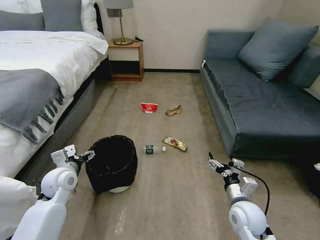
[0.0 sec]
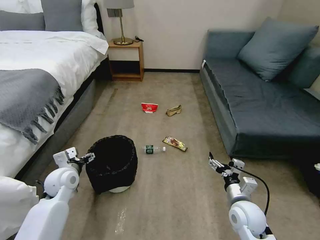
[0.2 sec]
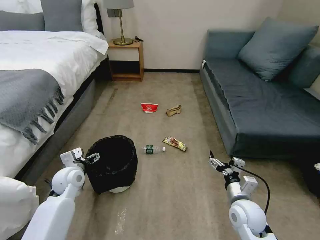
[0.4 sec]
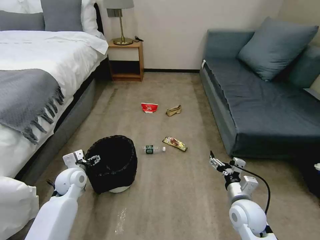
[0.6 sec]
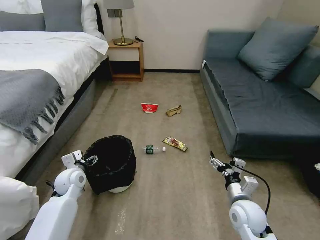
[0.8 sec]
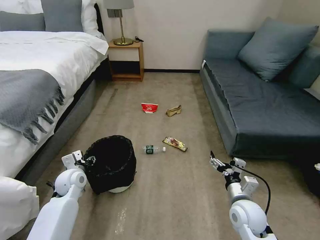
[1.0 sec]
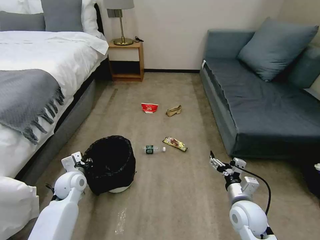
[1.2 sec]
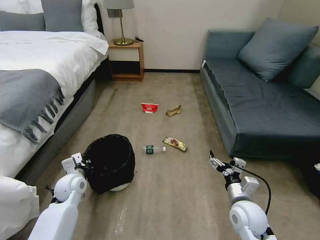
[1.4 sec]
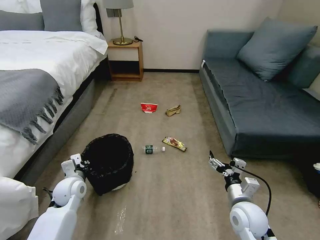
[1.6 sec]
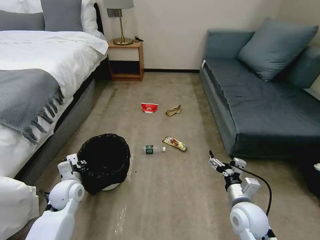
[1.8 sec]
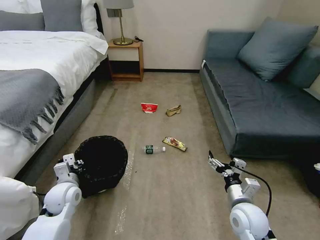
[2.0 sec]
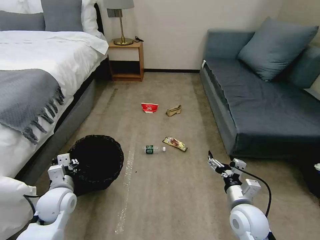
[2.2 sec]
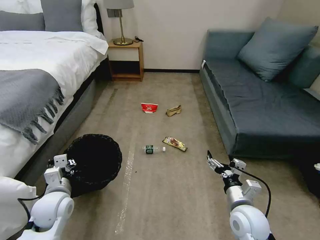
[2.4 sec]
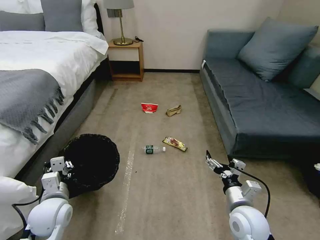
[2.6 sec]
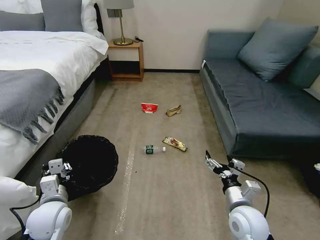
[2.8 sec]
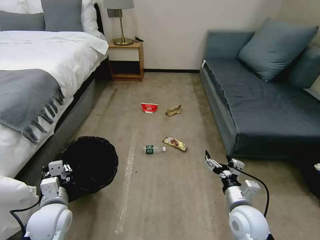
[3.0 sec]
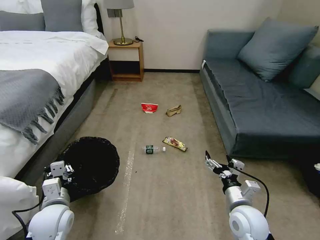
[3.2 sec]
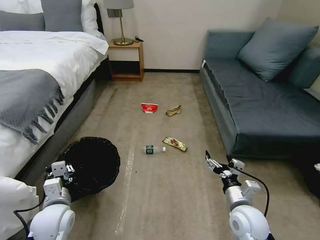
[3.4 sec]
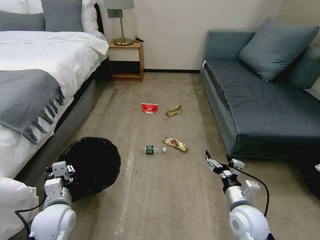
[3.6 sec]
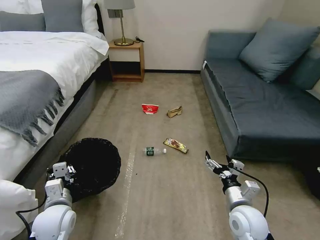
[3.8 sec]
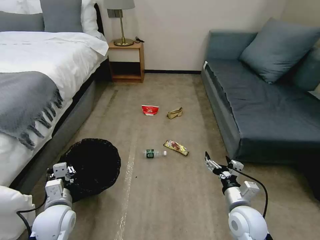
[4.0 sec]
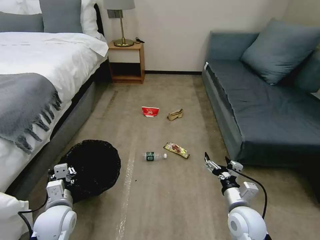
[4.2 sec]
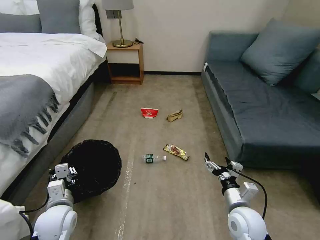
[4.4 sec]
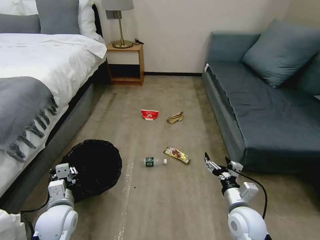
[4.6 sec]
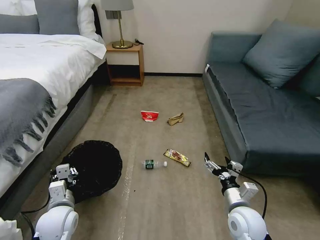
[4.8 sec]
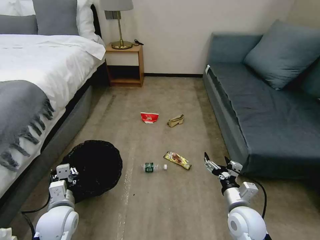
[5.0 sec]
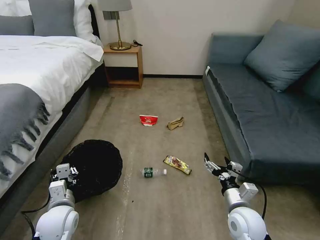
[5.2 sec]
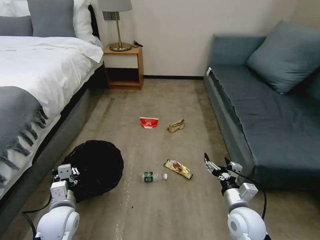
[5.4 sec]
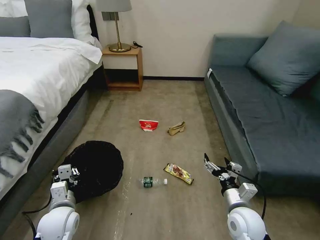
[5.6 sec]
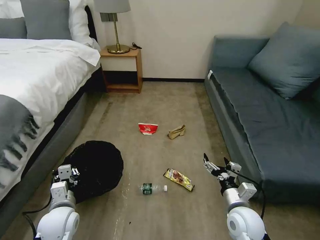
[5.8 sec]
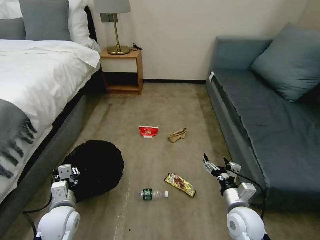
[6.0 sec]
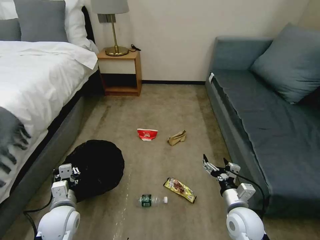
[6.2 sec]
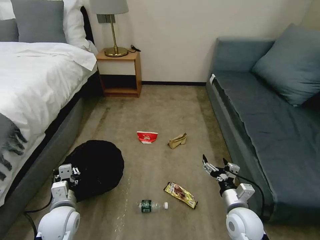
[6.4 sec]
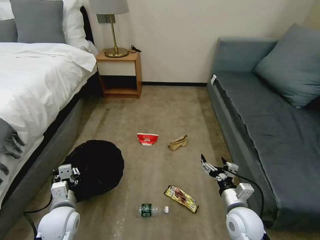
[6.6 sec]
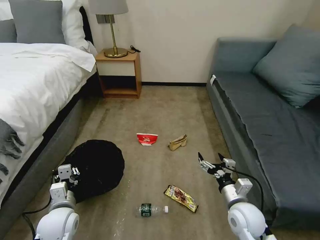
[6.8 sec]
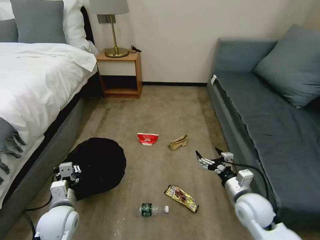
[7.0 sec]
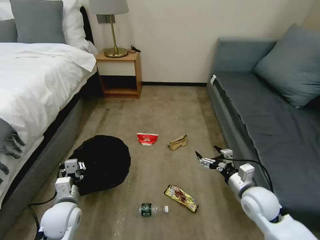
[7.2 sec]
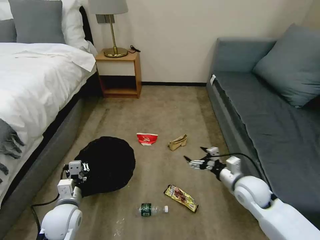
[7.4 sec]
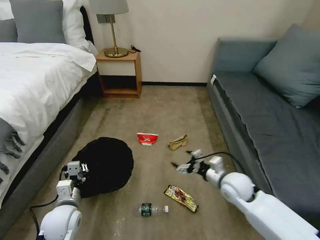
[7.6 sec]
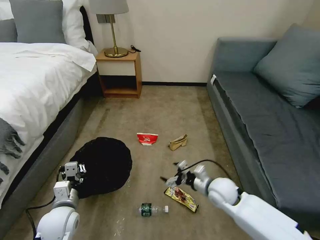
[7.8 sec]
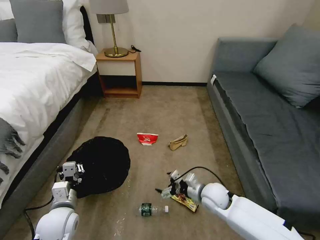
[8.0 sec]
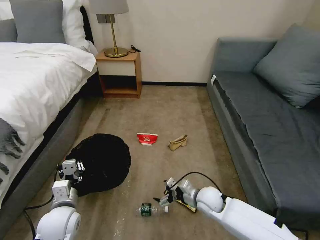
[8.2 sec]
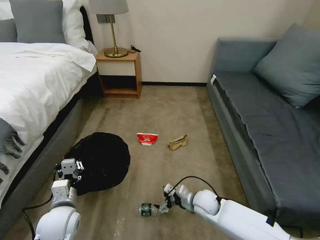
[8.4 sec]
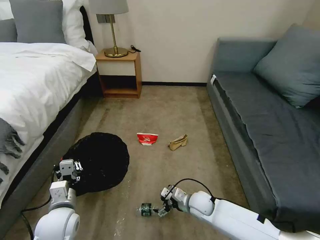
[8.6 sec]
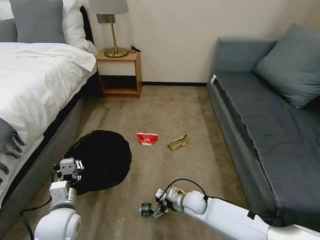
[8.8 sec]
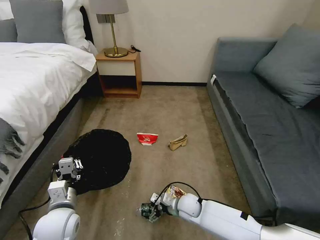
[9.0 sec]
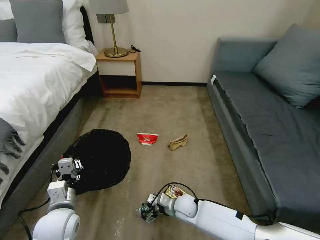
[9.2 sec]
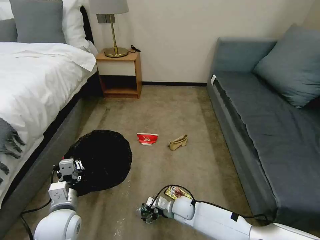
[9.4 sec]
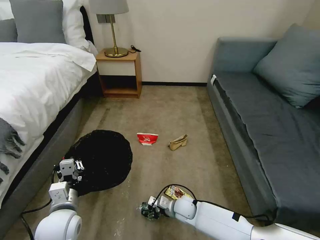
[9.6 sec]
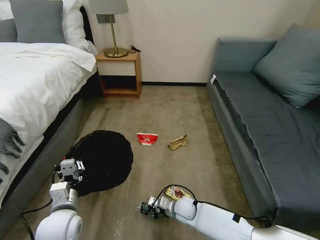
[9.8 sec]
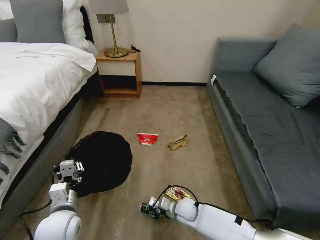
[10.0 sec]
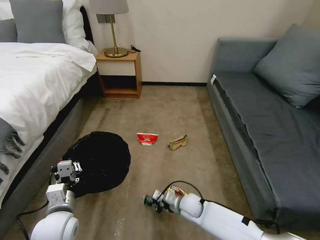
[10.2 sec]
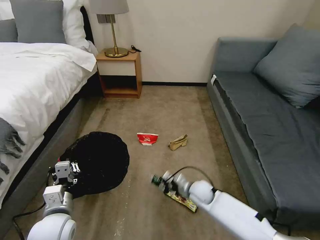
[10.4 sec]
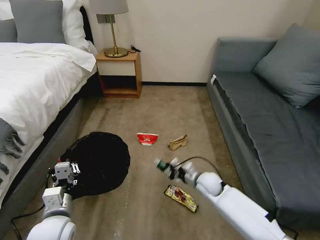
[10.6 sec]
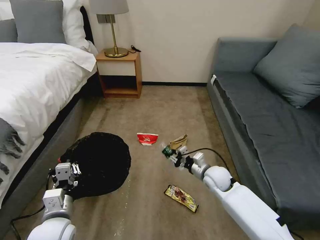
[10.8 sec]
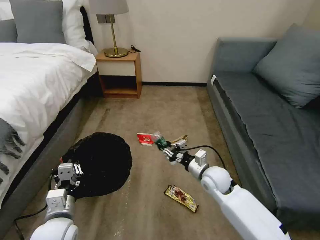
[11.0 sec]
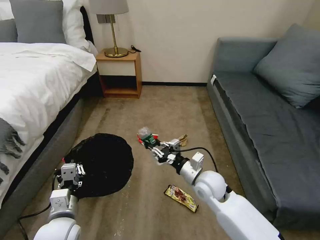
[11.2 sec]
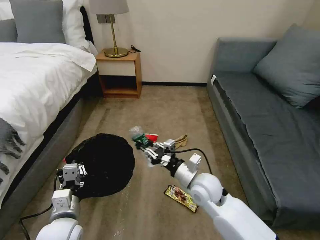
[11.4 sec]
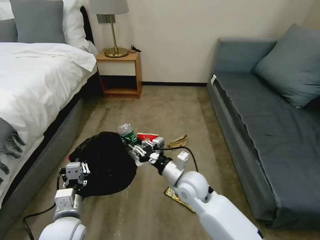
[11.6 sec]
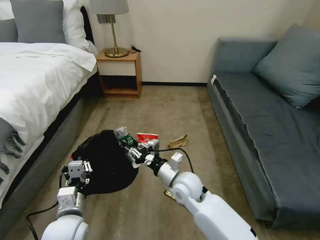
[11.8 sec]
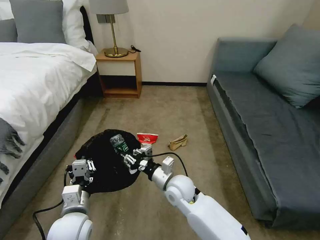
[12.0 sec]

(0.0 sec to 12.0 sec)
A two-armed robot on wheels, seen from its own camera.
Task of the whole recording: Pick up the trash bin, then pick up the garbage on the floor and place it into the trash bin.
0.0 sec - 1.6 sec: The left gripper moves downward, some 5 cm, and closes up.
1.6 sec - 3.0 sec: The left gripper goes about 10 cm backward.
3.0 sec - 4.4 sec: The grippers make only small movements.
6.0 sec - 7.6 sec: The right gripper goes about 10 cm forward.
7.6 sec - 9.0 sec: The left gripper moves some 5 cm. Meanwhile the right gripper heads downward and to the left, covering approximately 20 cm.
9.0 sec - 10.4 sec: The right gripper changes place by roughly 5 cm, and closes up.
10.4 sec - 12.0 sec: The right gripper travels upward and to the left by roughly 15 cm.

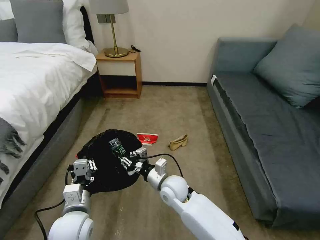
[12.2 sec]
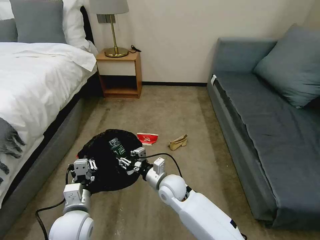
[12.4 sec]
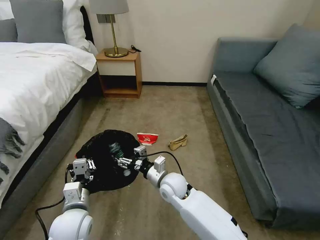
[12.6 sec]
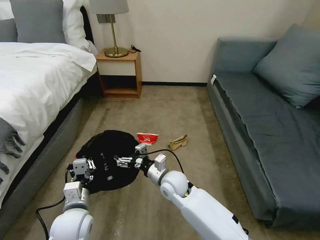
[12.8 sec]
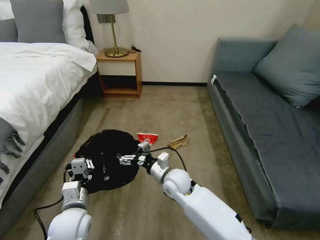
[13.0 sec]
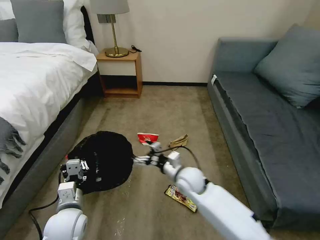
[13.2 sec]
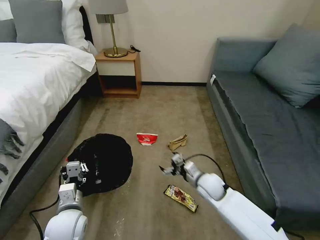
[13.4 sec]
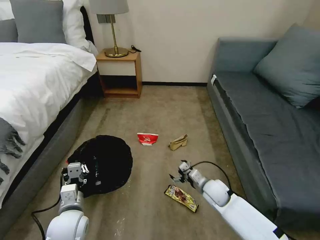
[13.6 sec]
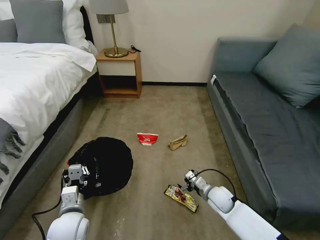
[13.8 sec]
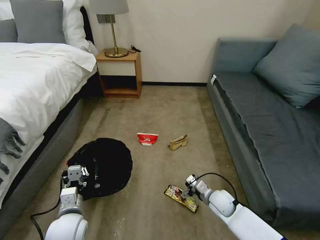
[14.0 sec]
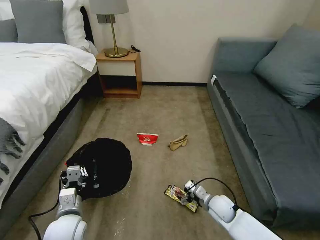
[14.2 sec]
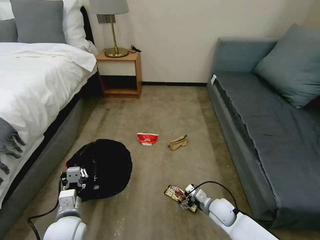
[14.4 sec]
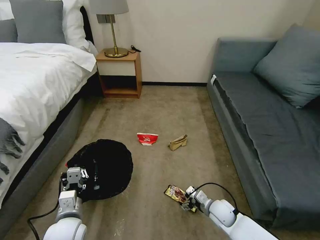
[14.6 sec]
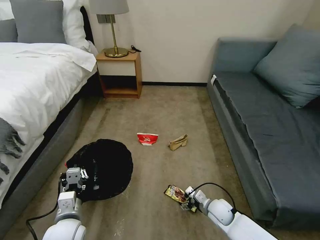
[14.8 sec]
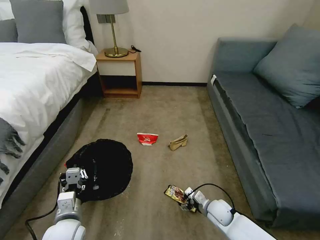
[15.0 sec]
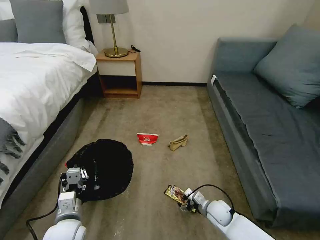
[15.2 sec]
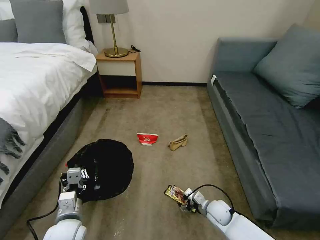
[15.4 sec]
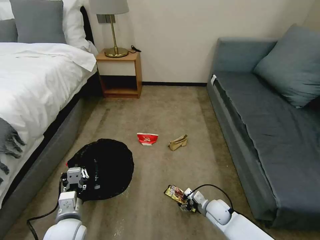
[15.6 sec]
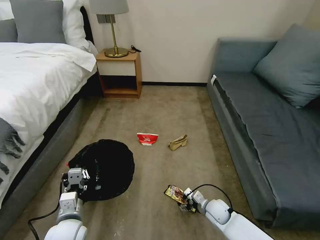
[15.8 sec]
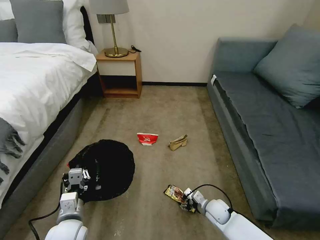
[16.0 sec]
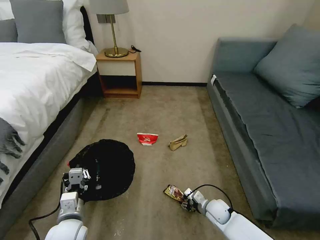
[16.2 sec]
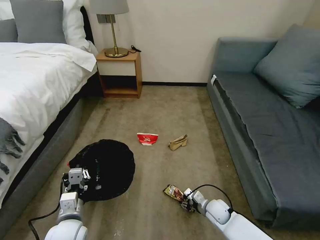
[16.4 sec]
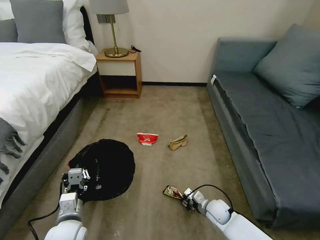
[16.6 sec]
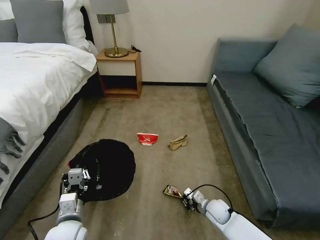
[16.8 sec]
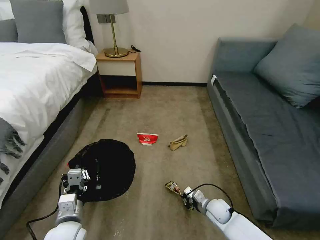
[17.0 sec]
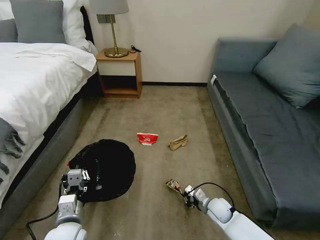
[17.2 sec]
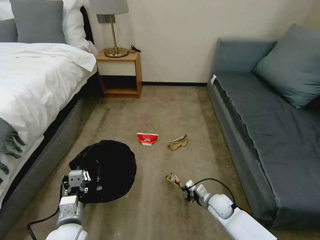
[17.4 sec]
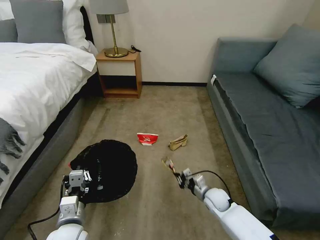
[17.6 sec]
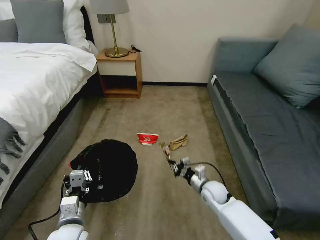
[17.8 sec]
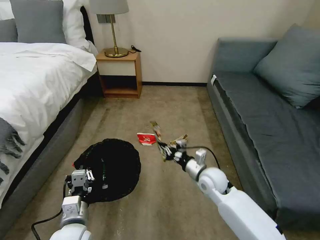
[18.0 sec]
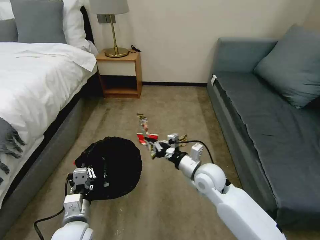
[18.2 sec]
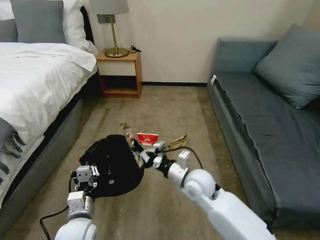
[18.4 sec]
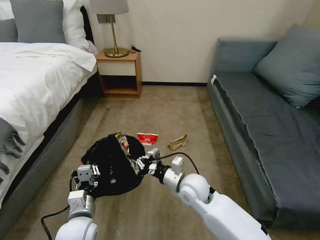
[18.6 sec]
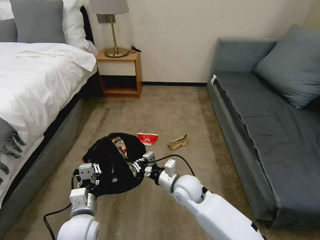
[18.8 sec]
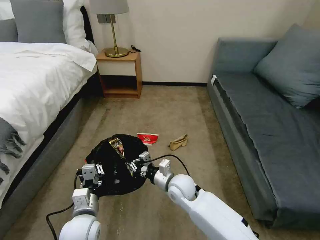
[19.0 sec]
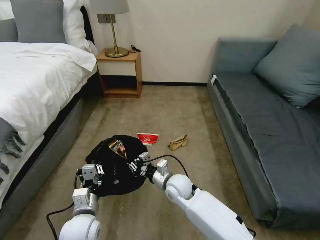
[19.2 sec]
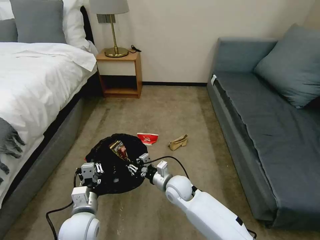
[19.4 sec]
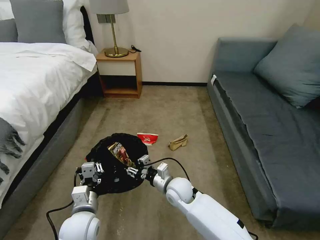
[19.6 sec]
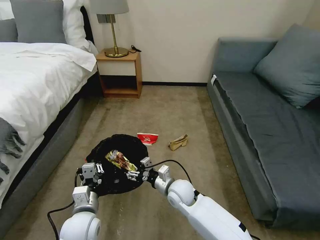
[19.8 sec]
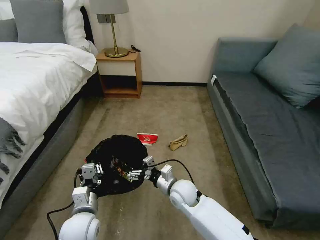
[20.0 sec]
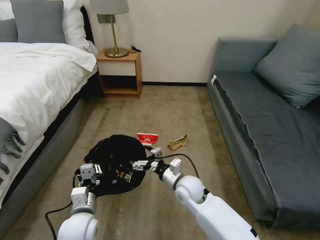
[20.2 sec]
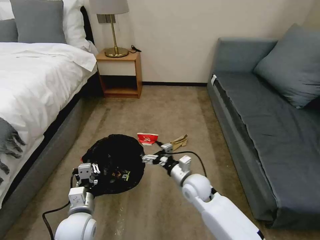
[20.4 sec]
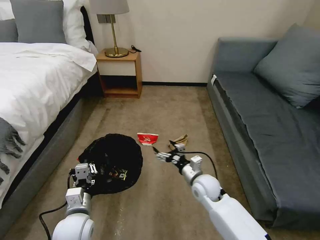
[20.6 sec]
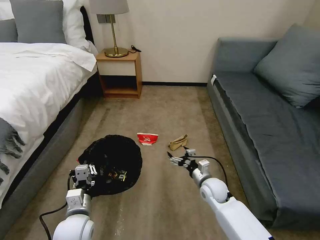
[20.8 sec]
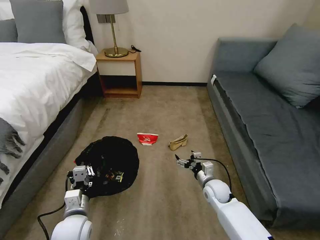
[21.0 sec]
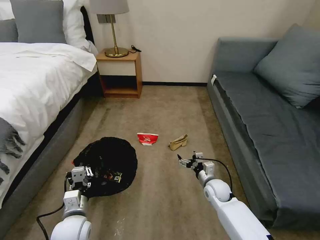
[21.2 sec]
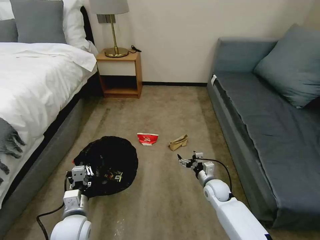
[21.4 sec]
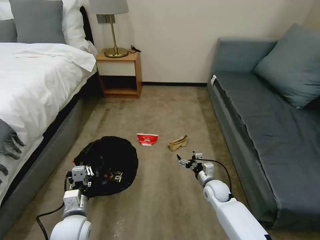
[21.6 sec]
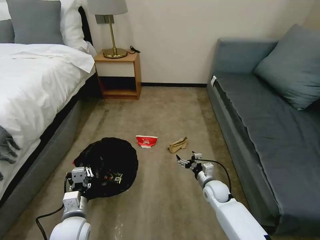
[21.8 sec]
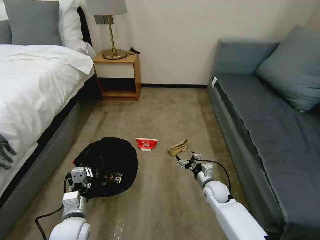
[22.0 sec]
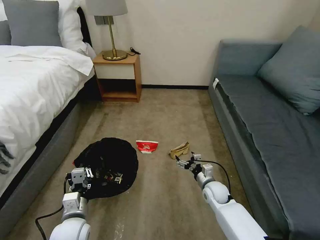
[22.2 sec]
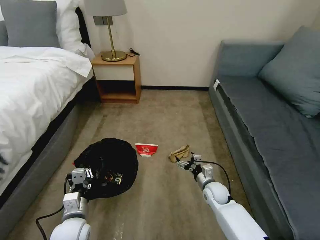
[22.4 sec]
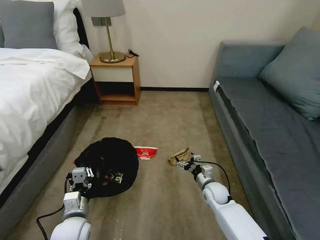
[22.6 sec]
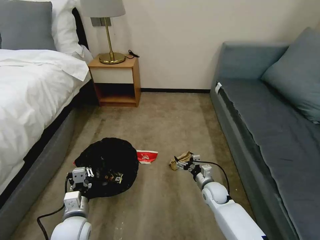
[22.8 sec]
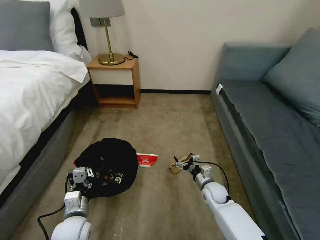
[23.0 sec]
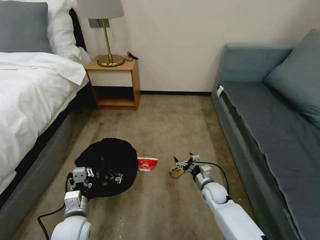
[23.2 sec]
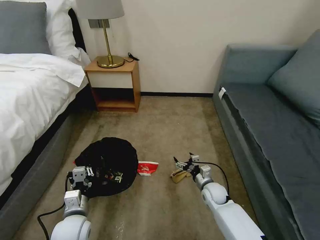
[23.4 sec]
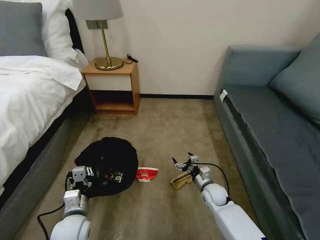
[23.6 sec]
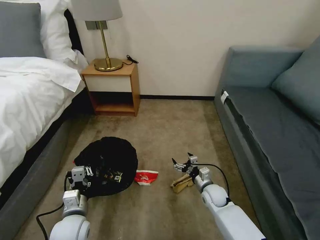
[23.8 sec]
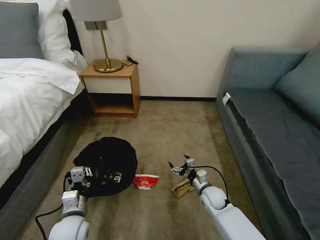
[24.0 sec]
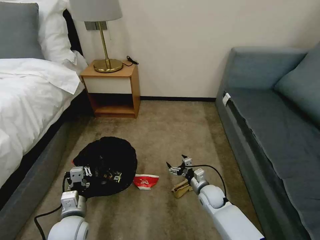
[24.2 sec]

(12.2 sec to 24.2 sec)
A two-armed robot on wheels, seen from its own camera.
Task of the whole recording: Pick up the trash bin, then pick up the garbage on the floor and place it into the trash bin.
12.2 sec - 13.8 sec: The right gripper travels to the right and downward by roughly 20 cm, and opens.
13.8 sec - 15.2 sec: The right gripper changes place by roughly 5 cm.
15.2 sec - 16.6 sec: The right gripper closes up.
16.6 sec - 18.2 sec: The right gripper moves upward, approximately 25 cm.
18.2 sec - 19.8 sec: The right gripper is displaced downward and to the left by roughly 15 cm, and opens its fingers.
19.8 sec - 21.2 sec: The right gripper is displaced to the right by some 15 cm.
21.2 sec - 22.6 sec: The grippers make only small movements.
